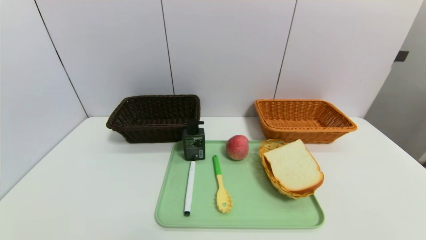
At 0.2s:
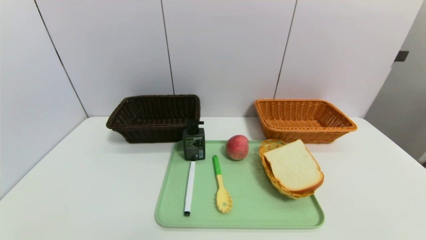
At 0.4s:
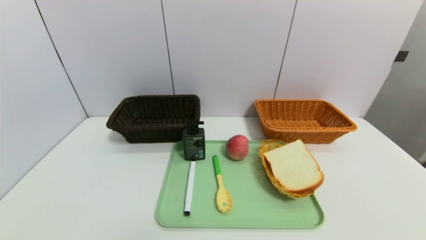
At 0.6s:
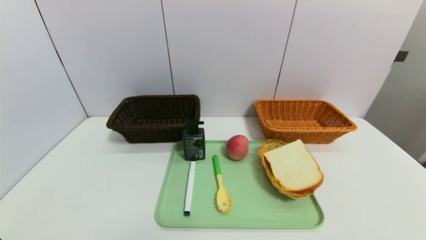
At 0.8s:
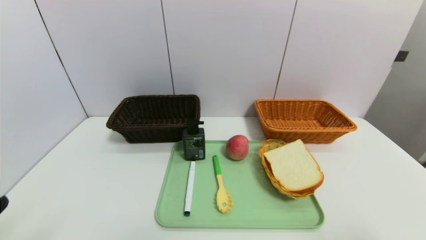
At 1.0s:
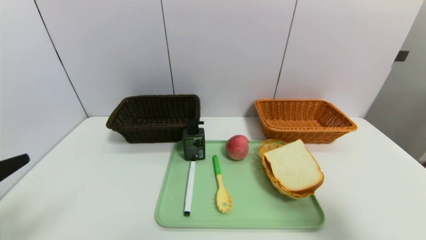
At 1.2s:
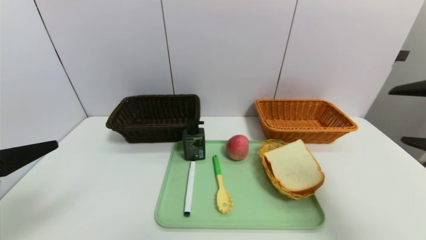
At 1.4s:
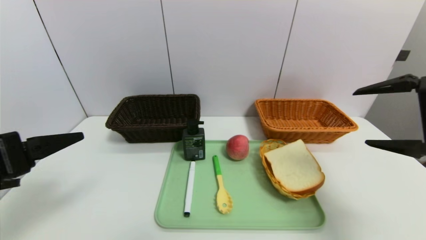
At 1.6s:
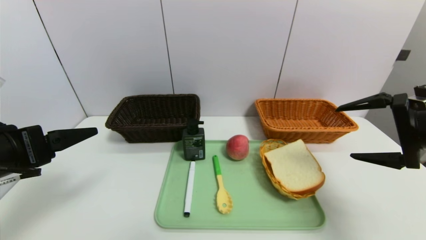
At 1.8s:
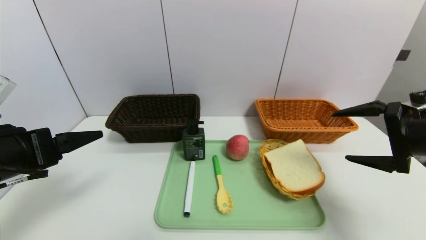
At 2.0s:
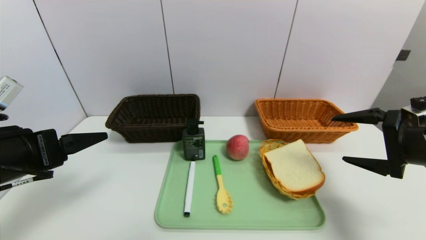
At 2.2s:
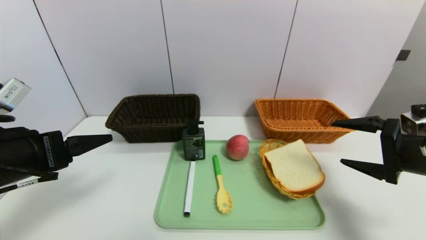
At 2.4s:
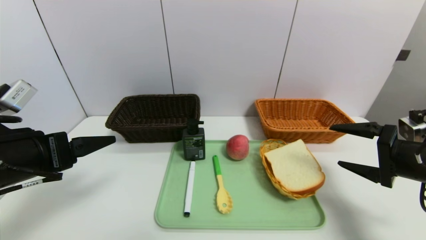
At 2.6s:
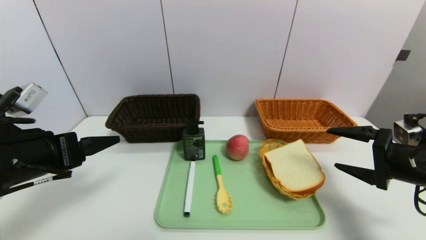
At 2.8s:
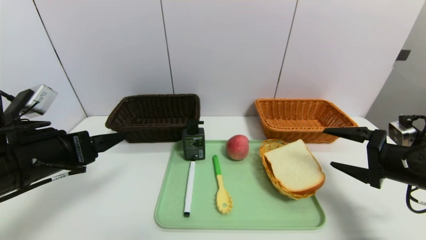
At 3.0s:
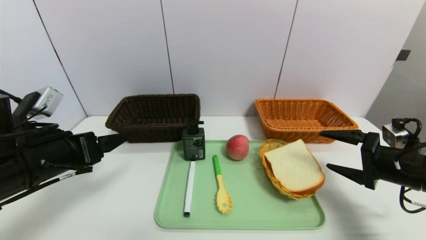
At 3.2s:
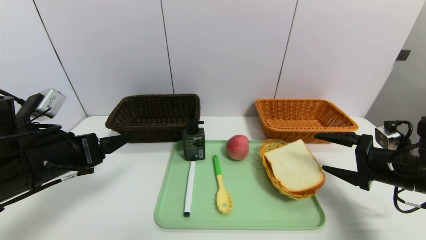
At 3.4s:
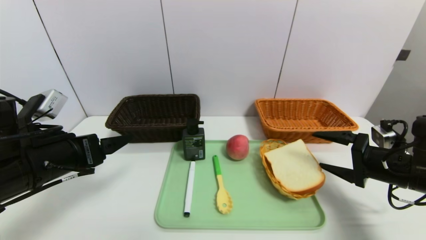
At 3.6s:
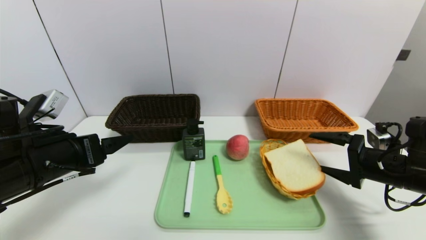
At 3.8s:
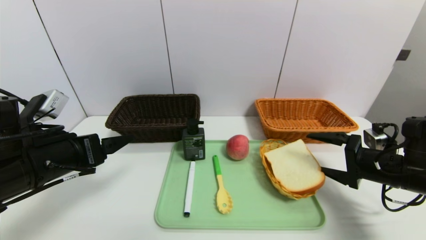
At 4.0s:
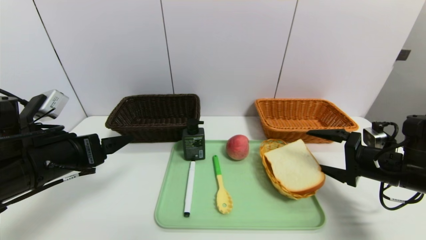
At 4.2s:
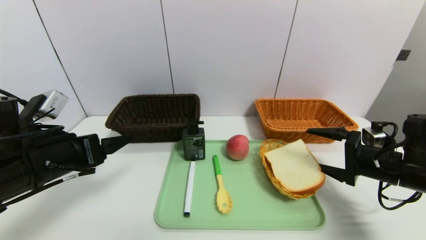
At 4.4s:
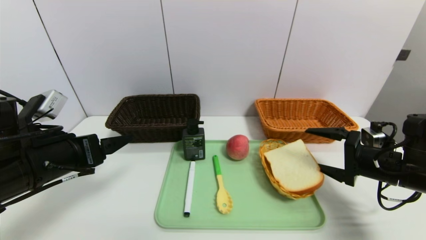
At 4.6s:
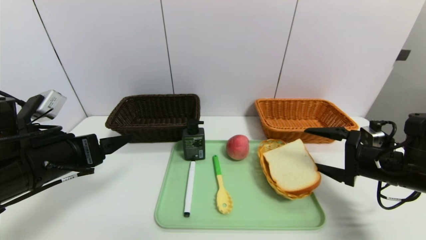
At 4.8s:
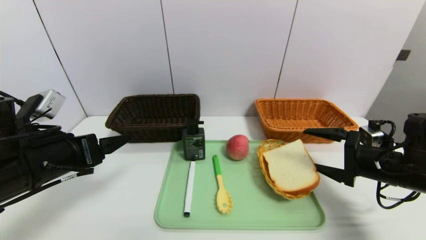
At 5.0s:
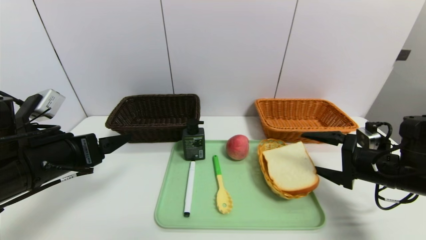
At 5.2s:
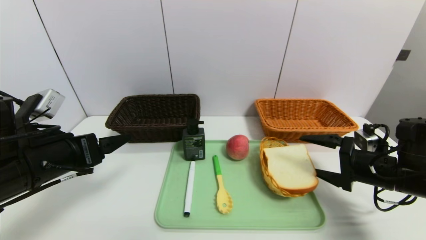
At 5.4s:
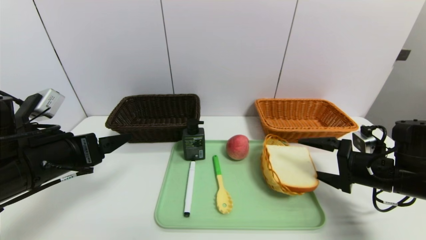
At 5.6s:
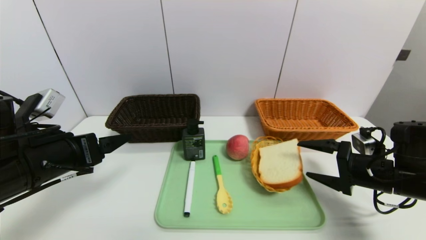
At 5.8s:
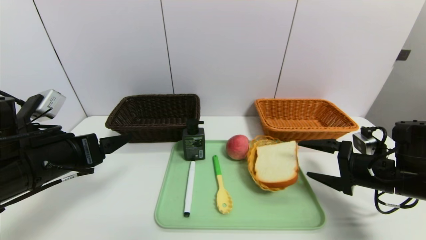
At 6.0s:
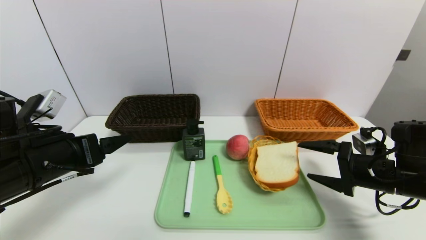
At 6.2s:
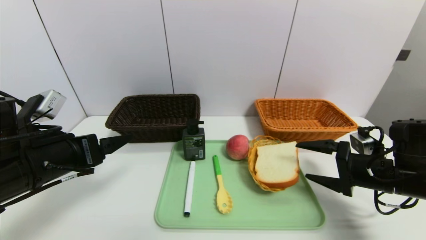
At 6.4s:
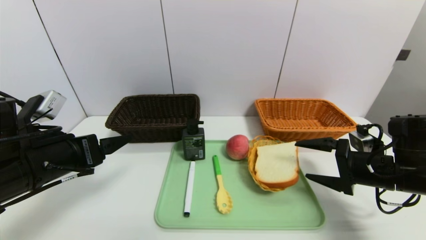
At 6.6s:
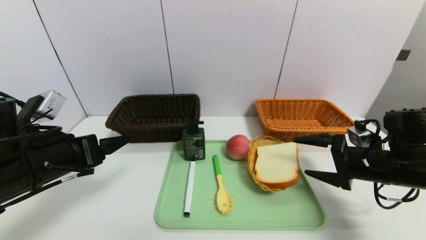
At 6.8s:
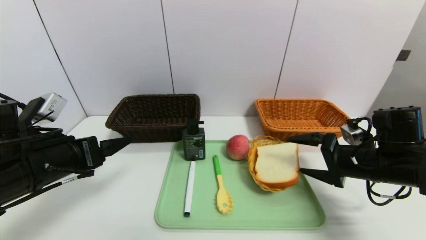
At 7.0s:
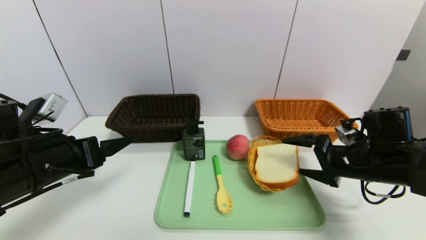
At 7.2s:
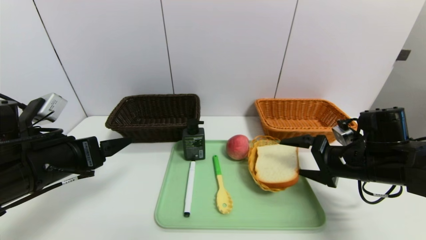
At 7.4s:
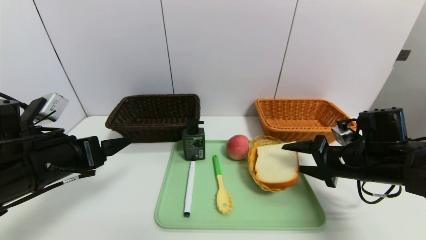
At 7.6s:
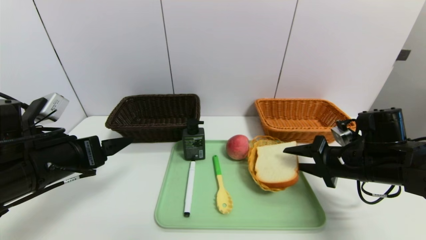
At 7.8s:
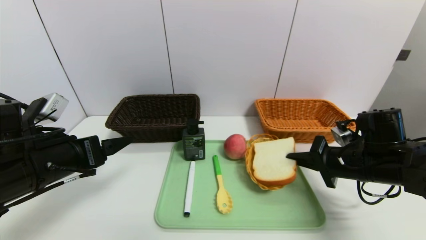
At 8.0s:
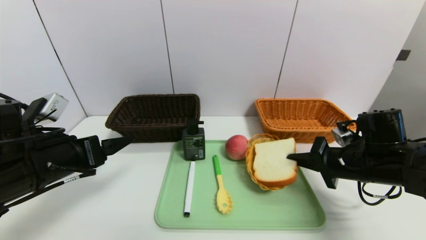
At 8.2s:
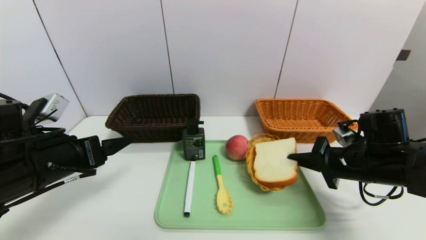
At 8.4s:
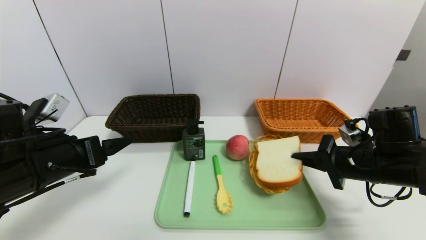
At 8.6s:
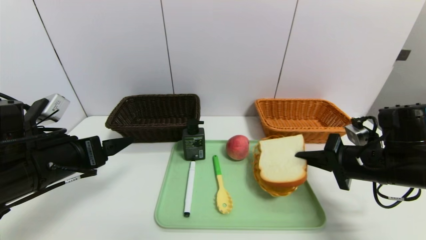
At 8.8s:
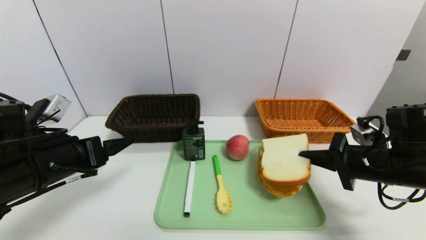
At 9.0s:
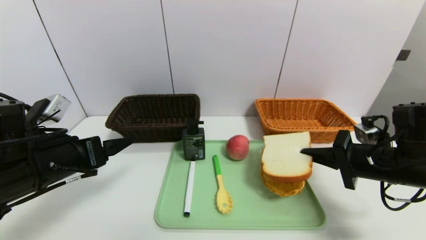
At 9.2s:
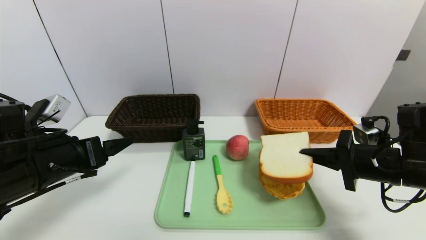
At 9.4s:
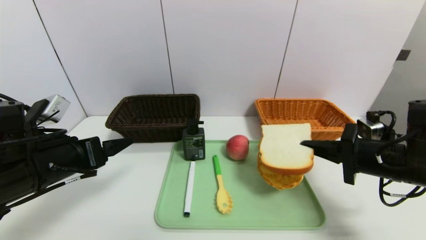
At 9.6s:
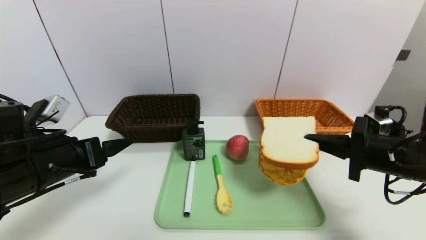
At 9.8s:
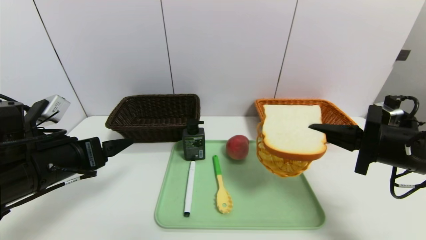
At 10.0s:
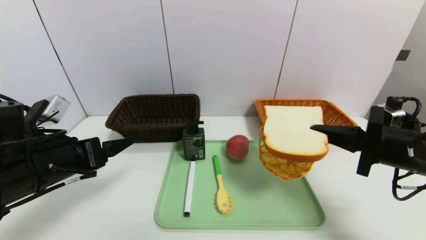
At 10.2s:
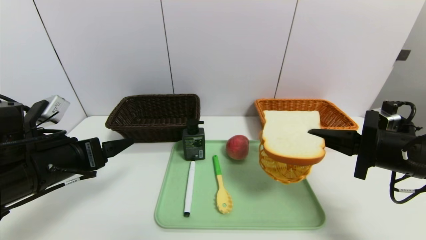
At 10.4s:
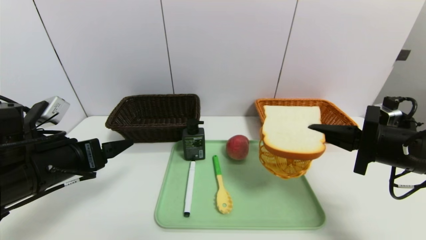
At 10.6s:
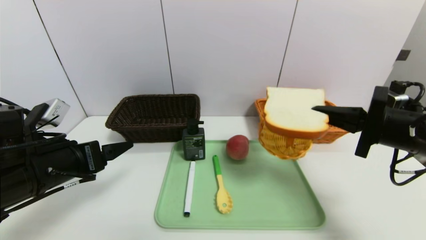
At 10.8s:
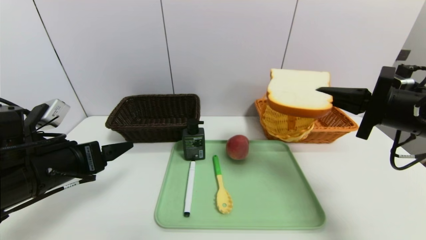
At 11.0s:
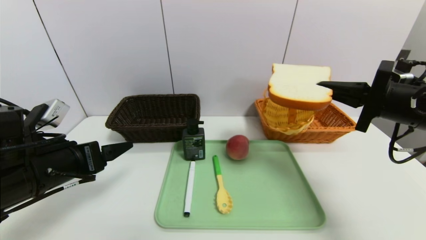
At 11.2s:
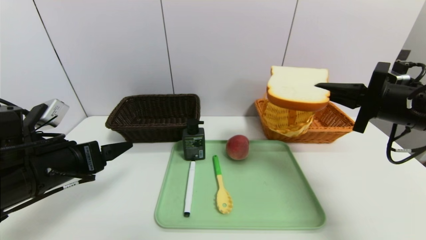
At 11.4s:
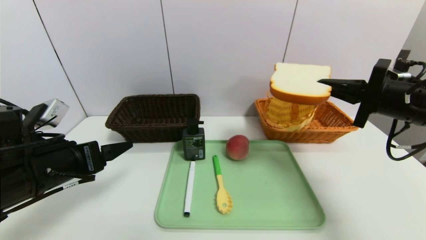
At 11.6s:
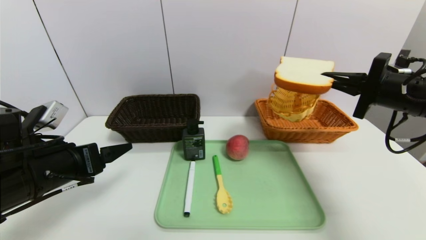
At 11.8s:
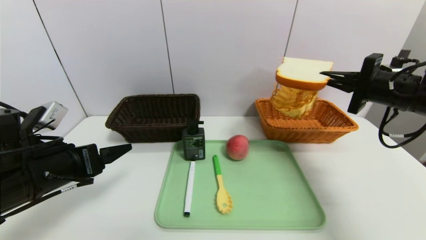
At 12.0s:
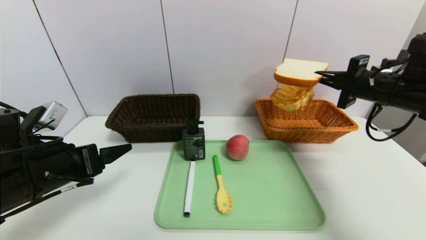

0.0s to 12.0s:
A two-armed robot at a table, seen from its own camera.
Task of the whole recording: place the food in the right basket with the right gripper, and place the non food items in the left basket with the left gripper.
0.0s to 1.6s: The right gripper heads forward and upward, covering about 30 cm. Meanwhile the left gripper is displaced upward and forward by approximately 25 cm.
1.6s to 3.0s: The right gripper goes some 10 cm downward. The left gripper shifts by roughly 5 cm.
3.0s to 6.0s: The grippers stay close to where they were, moving slightly.
6.0s to 7.6s: The right gripper closes up.
7.6s to 9.0s: The right gripper closes up.
9.0s to 10.4s: The grippers stay close to where they were, moving slightly.
10.4s to 12.0s: The right gripper is displaced forward by approximately 10 cm.

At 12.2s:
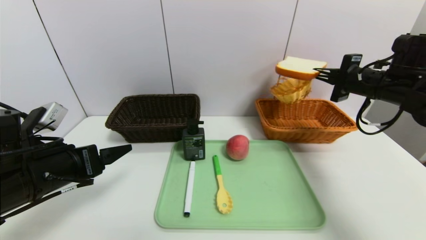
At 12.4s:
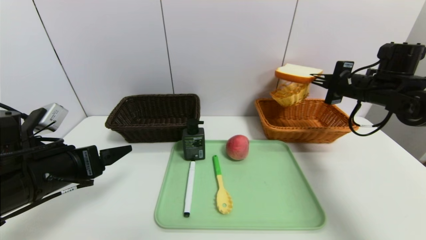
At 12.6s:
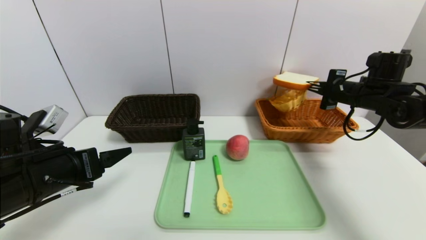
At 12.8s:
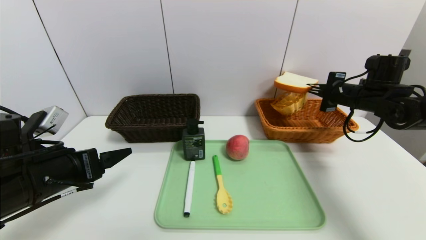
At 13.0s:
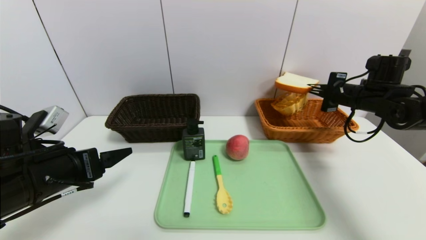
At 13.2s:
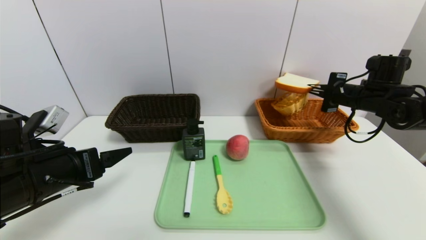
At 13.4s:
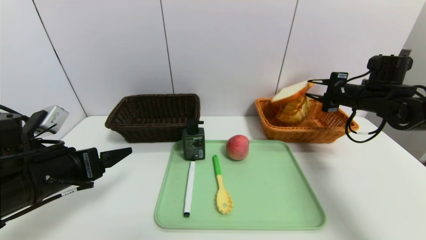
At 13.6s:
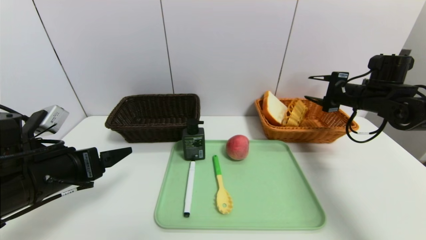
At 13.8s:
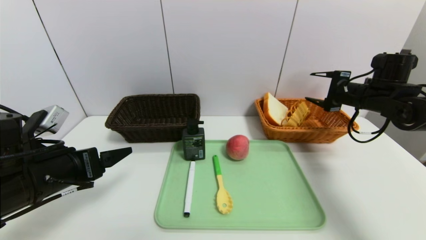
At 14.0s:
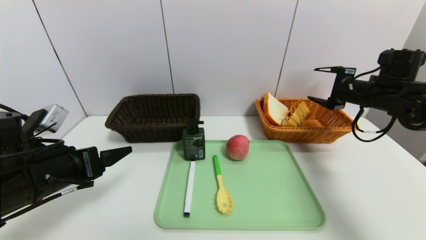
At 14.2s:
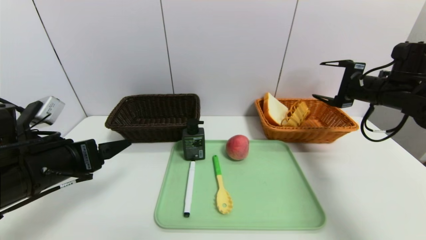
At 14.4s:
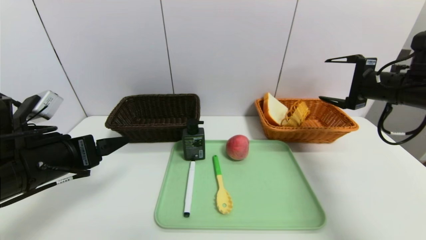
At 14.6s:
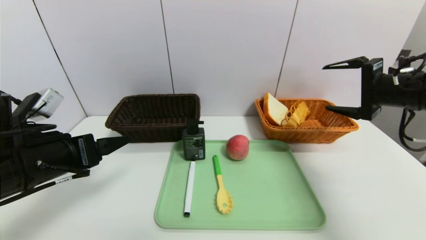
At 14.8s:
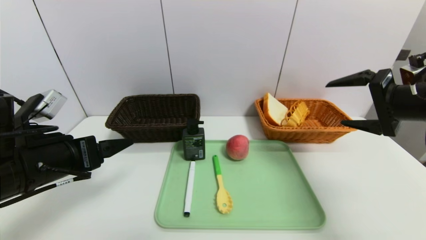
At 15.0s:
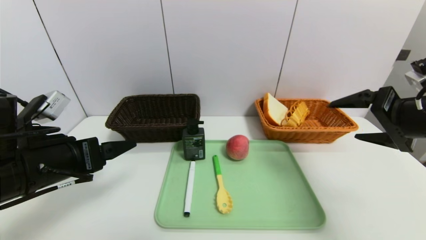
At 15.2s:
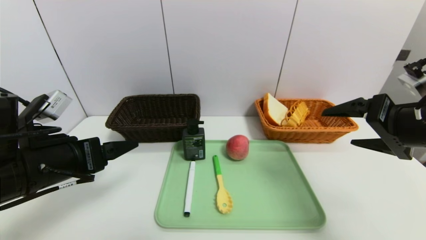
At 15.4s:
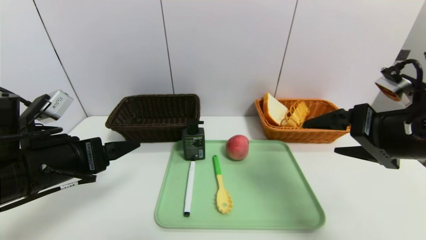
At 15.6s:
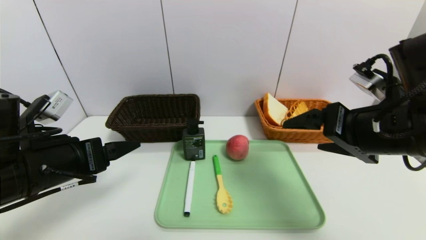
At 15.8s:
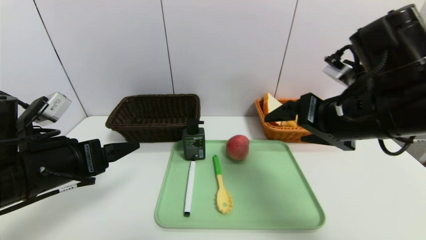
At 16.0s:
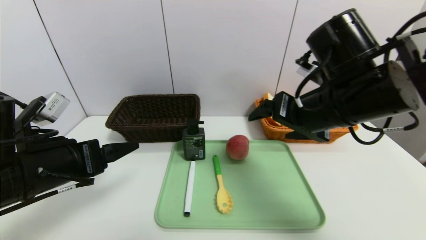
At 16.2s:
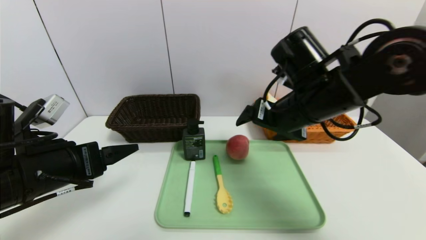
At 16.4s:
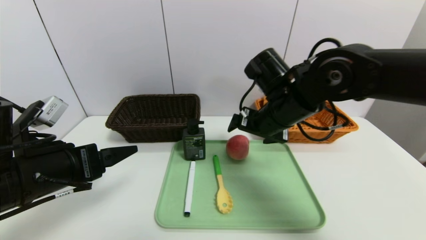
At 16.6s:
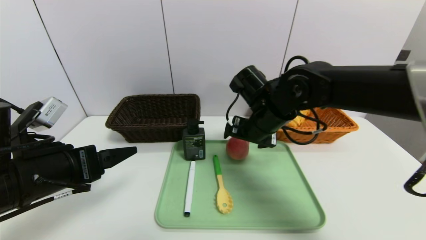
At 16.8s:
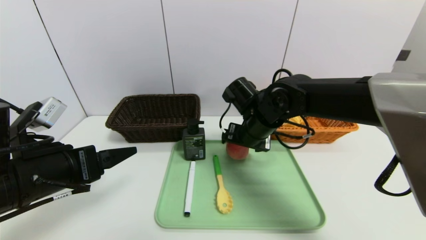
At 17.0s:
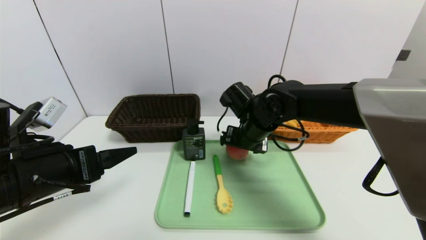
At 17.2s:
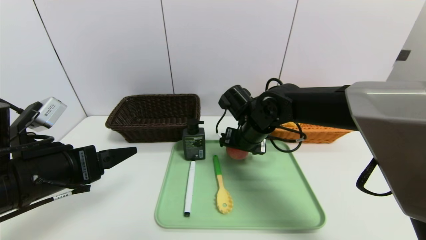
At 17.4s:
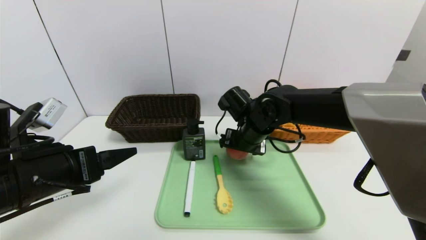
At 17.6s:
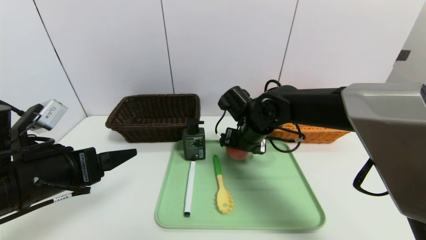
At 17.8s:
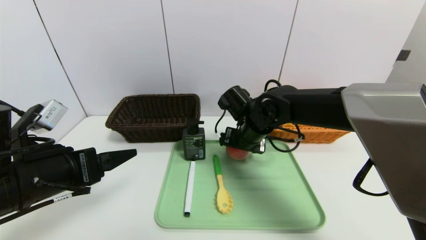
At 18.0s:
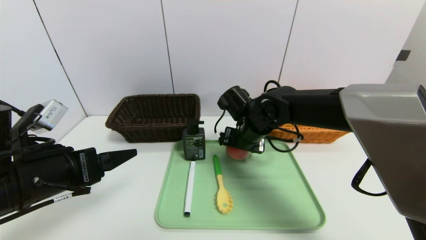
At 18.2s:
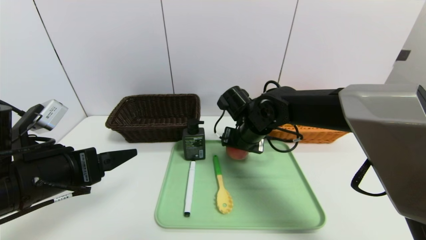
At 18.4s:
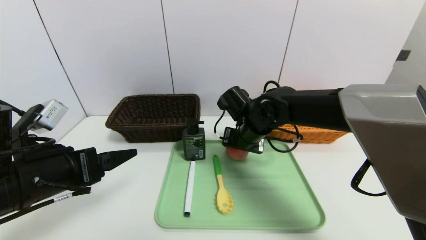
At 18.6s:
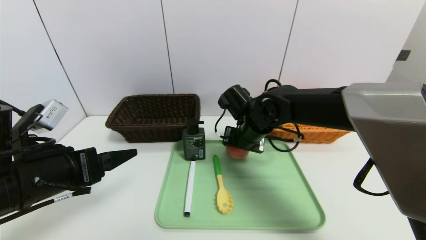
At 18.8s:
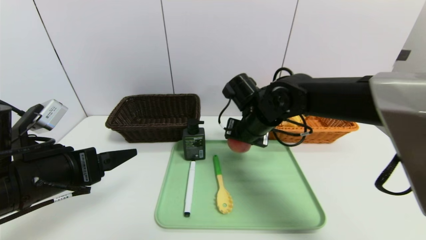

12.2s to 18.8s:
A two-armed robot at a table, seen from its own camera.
Task of the whole recording: place the food in the right basket with the right gripper, and place the non food items in the left basket with the left gripper.
12.2s to 13.8s: The right gripper moves about 5 cm, and opens up.
13.8s to 15.4s: The right gripper moves backward and to the left, some 20 cm.
15.4s to 17.2s: The right gripper goes roughly 25 cm to the left, forward and downward.
17.2s to 18.8s: The right gripper closes up.
